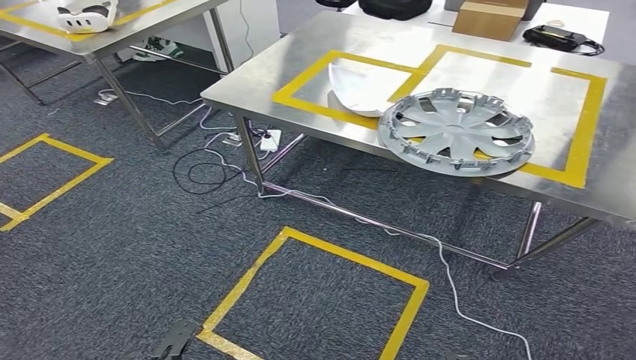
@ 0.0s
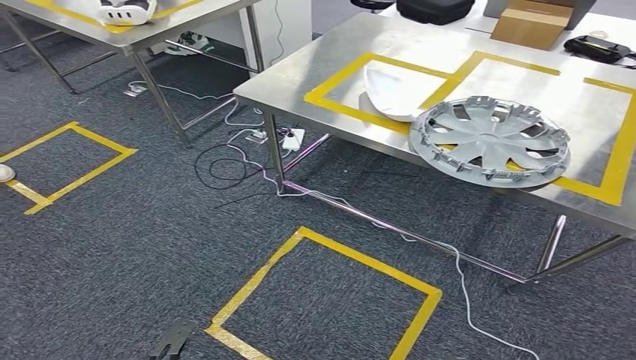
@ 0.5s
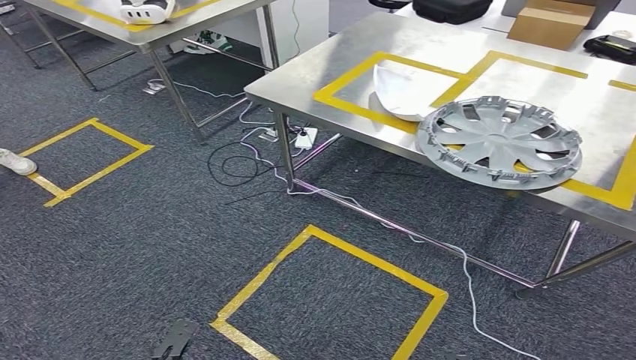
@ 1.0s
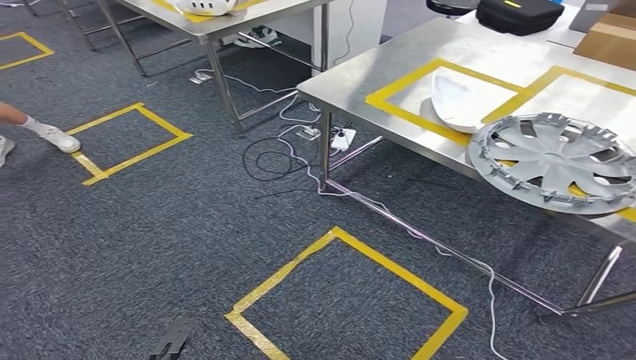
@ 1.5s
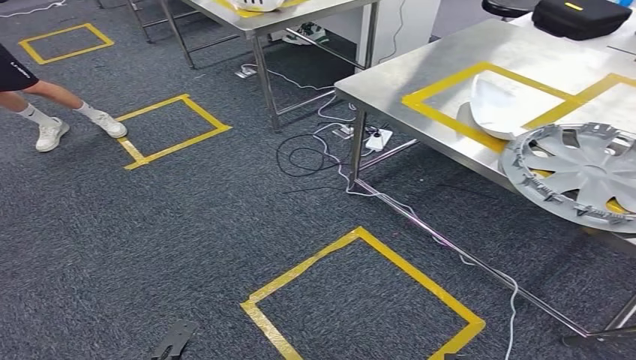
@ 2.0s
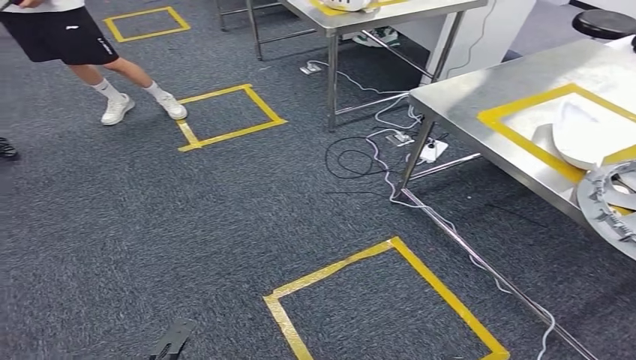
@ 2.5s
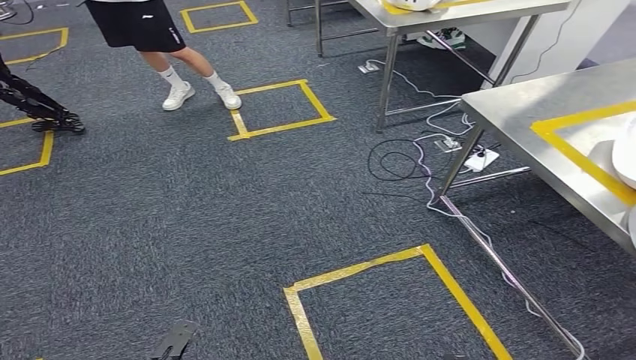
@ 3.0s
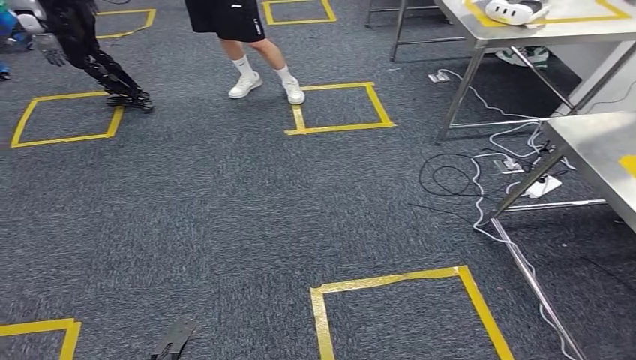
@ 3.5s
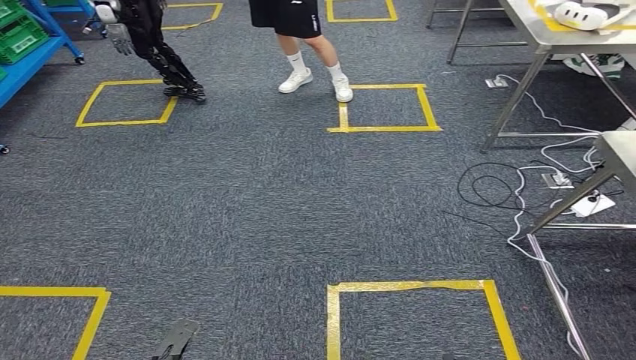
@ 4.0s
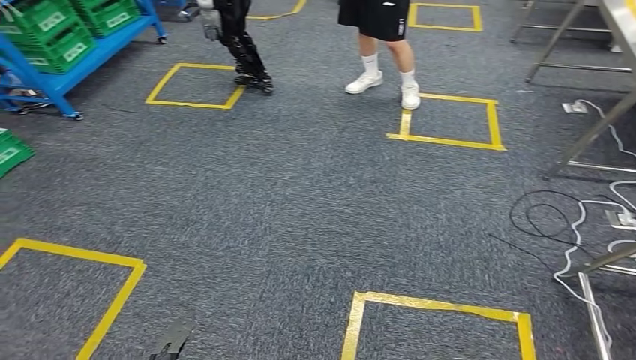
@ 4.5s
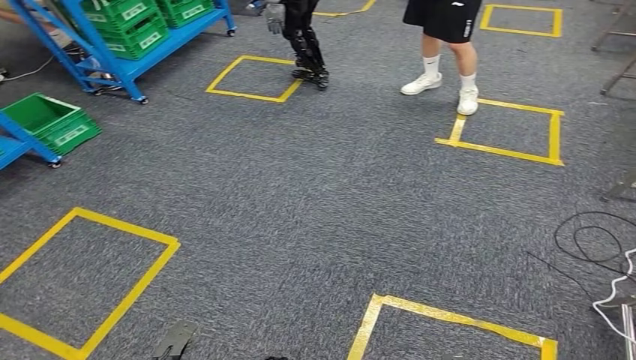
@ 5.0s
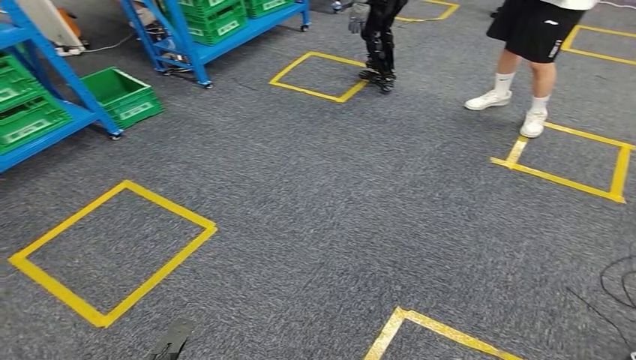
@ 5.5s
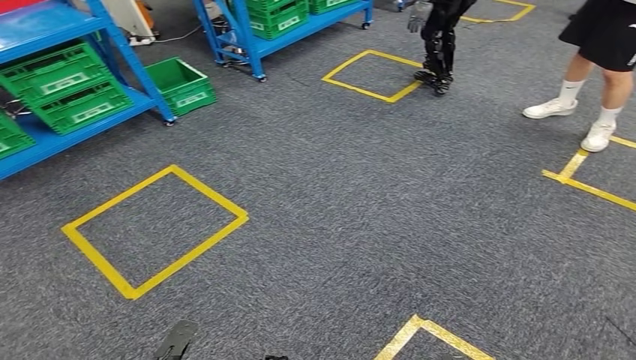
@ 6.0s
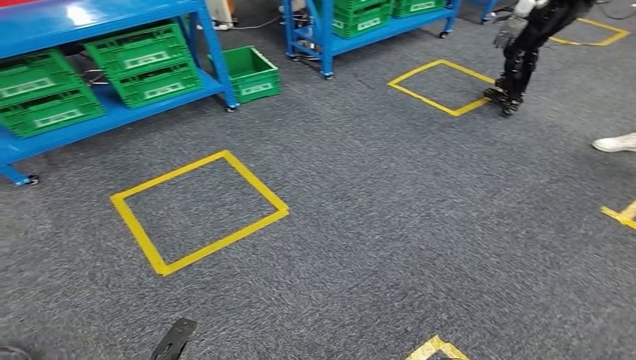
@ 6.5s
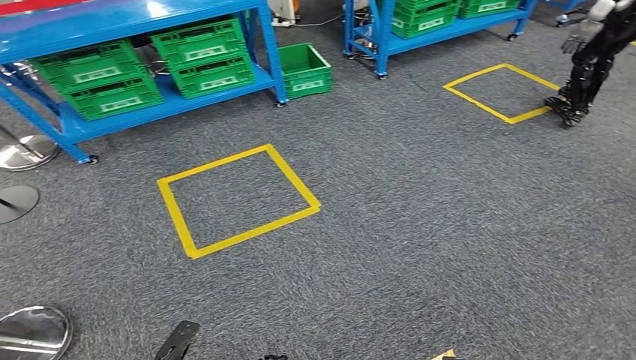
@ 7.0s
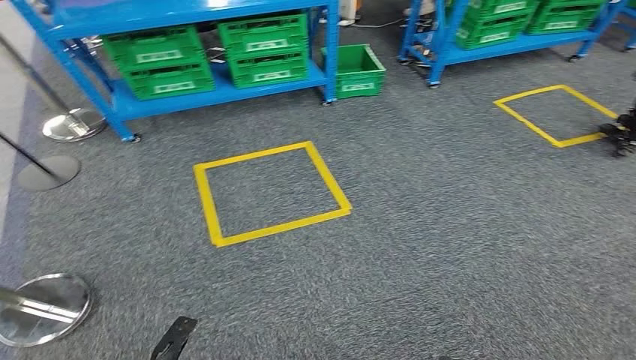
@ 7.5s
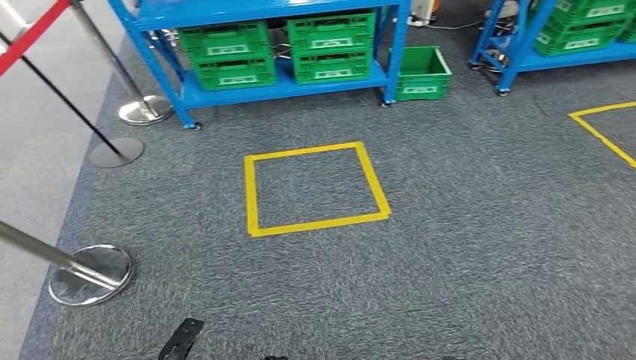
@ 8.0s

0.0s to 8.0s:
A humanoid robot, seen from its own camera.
Step, 0.0s to 8.0s: Return to the initial position at the workbench.
